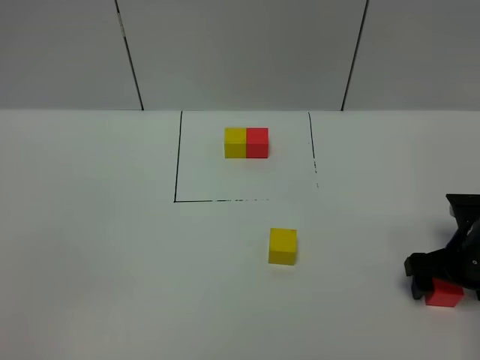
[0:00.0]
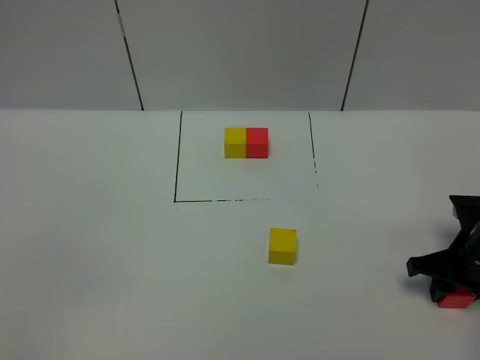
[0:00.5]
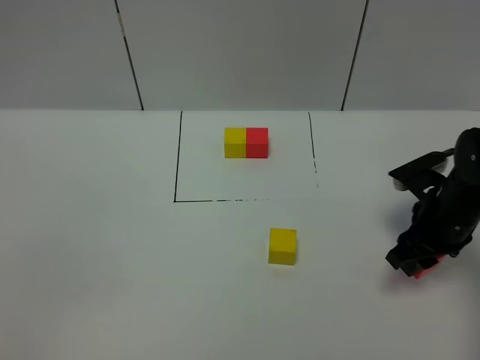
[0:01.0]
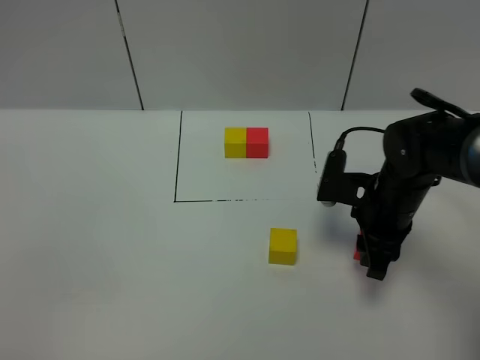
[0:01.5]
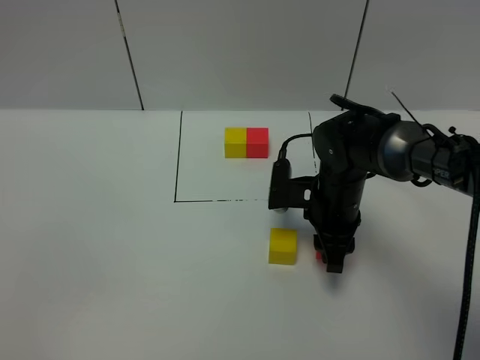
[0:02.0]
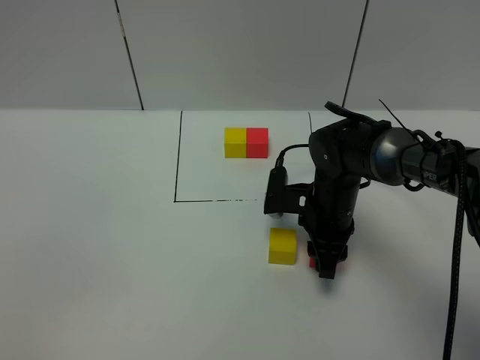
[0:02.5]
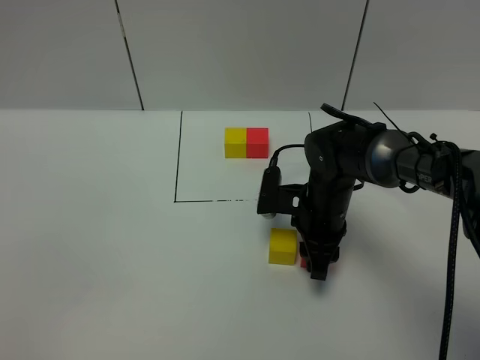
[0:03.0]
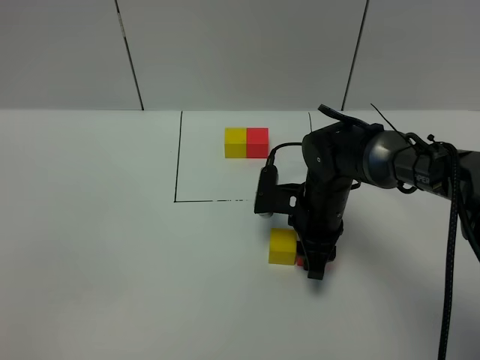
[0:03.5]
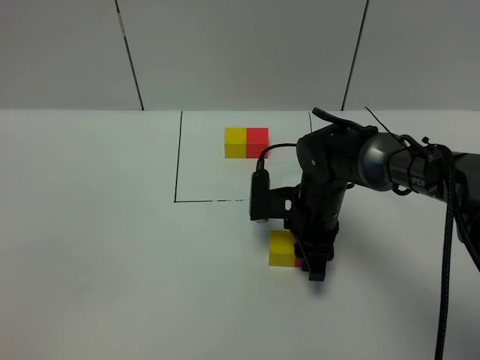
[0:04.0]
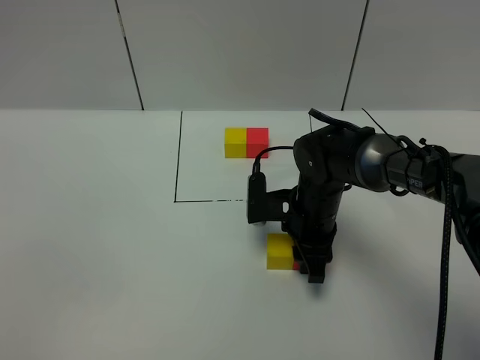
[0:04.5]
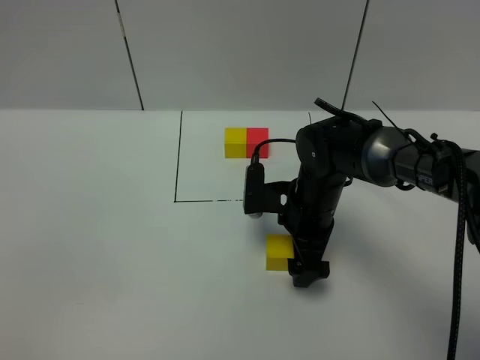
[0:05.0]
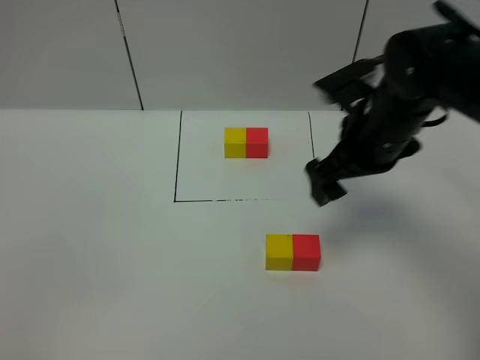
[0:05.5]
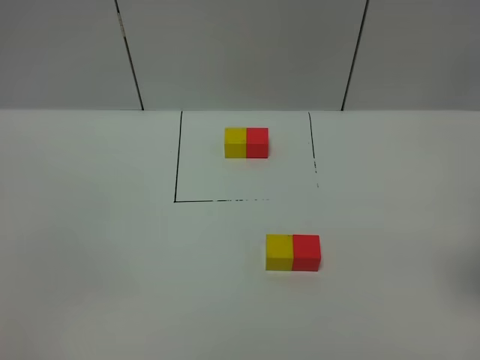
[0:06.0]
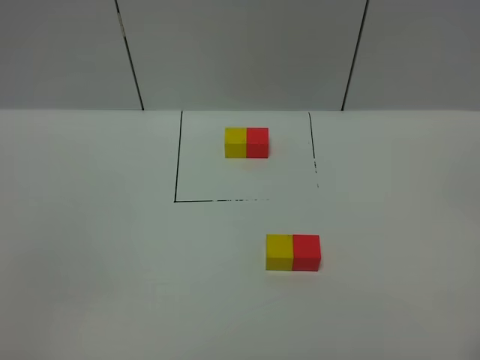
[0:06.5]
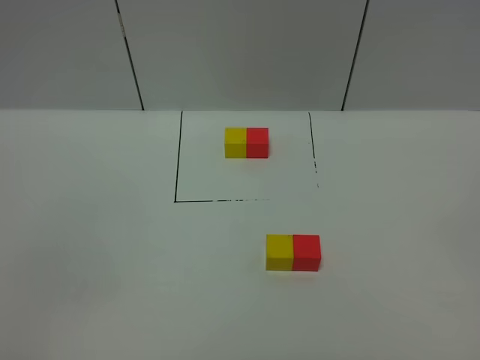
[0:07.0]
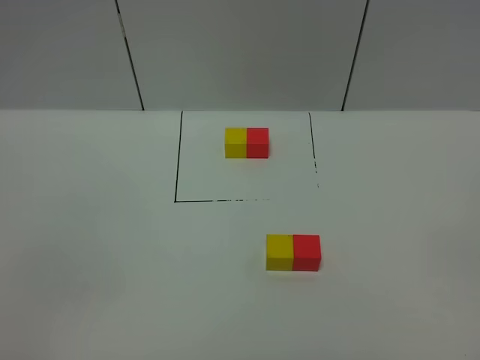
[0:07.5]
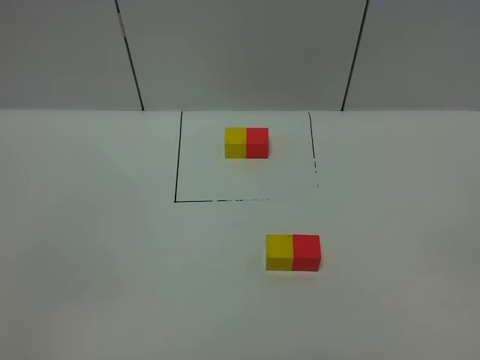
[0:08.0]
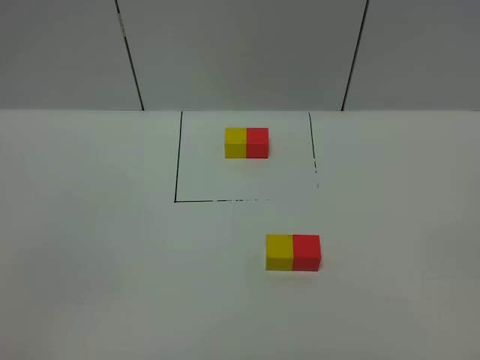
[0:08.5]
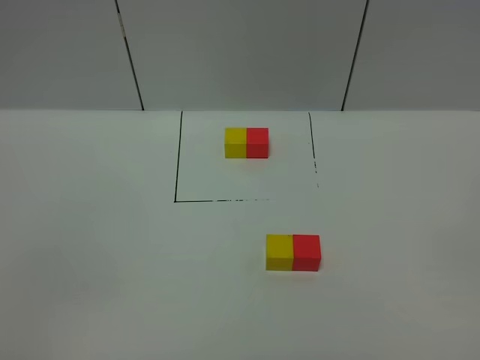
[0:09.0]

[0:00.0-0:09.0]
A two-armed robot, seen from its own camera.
Task of the whole recording: According to the building block template in front, assemble the scattered blocks together.
Step, 0:00.0 to 0:05.0: Put the red cube on the right of the yellow cube.
0:00.0 to 0:02.0: The right gripper heads to the left and forward, covering approximately 20 cm, and closes.
0:02.0 to 0:04.5: There are only small adjustments of the grippers.
0:04.5 to 0:07.0: The right gripper heads backward, to the right and upward, covering some 50 cm, and opens its fingers.
